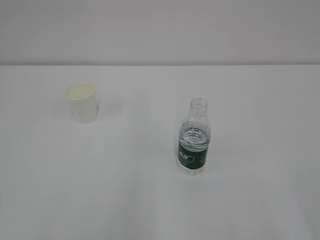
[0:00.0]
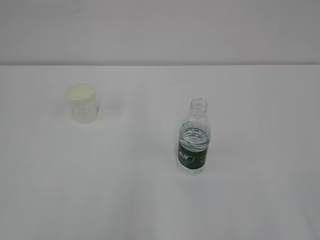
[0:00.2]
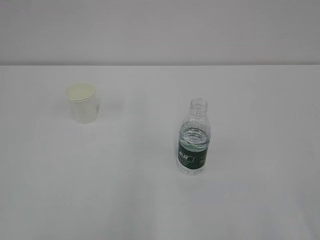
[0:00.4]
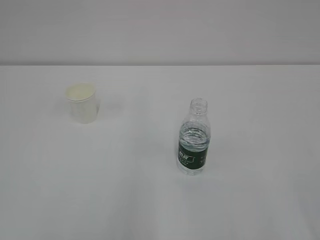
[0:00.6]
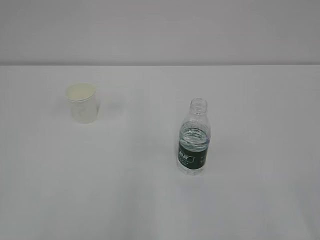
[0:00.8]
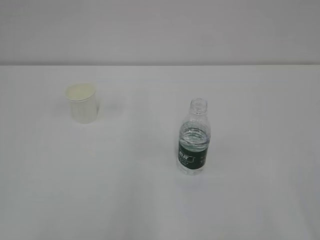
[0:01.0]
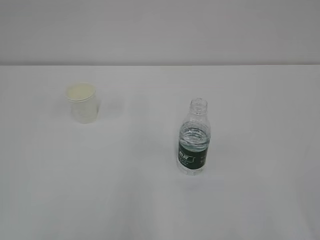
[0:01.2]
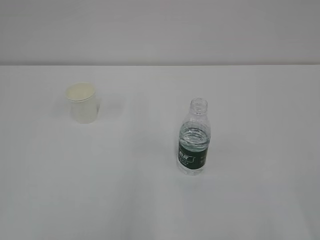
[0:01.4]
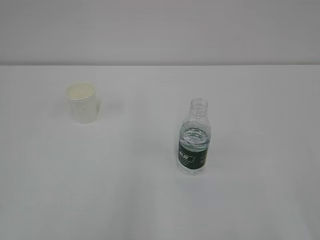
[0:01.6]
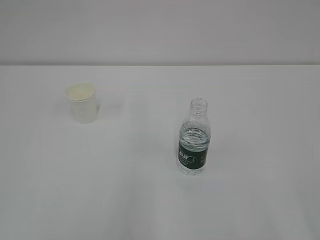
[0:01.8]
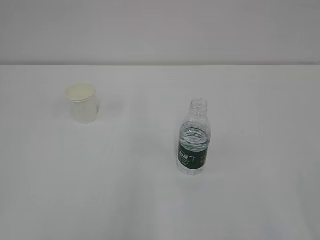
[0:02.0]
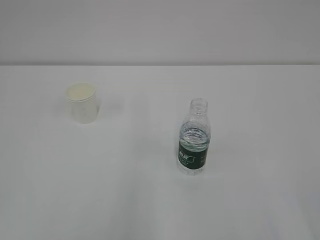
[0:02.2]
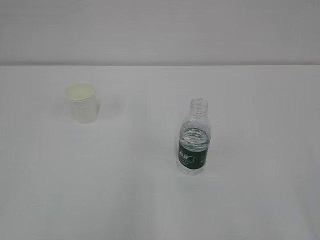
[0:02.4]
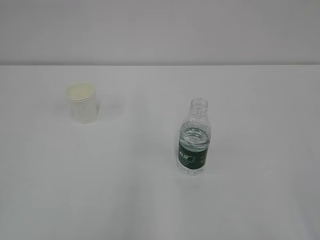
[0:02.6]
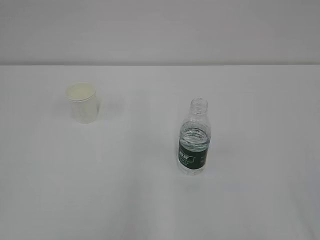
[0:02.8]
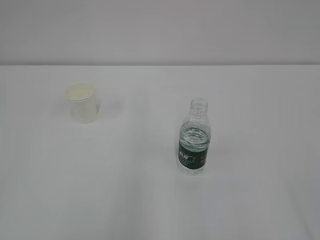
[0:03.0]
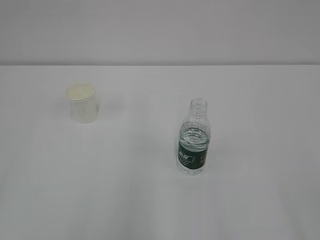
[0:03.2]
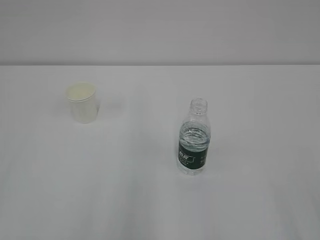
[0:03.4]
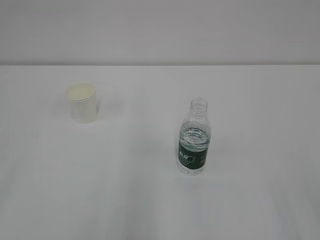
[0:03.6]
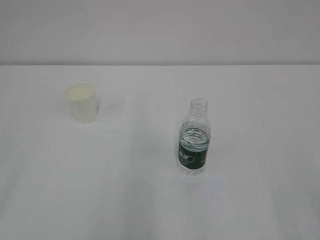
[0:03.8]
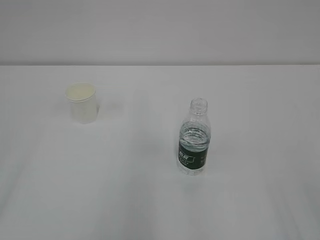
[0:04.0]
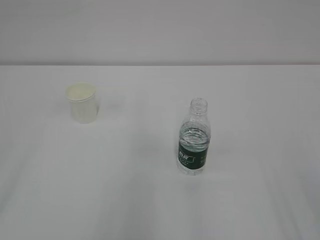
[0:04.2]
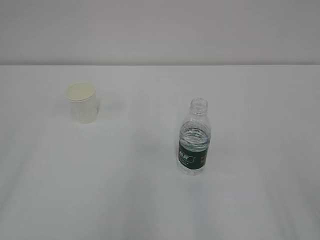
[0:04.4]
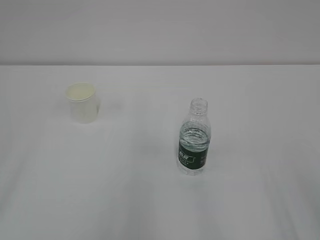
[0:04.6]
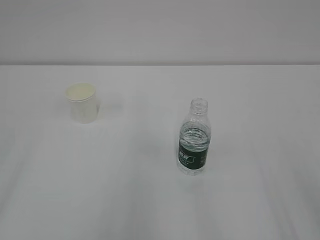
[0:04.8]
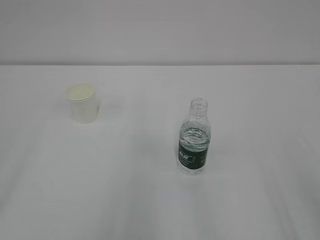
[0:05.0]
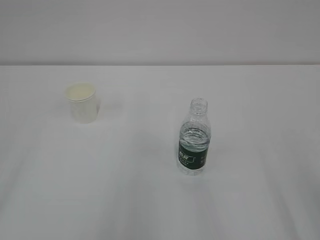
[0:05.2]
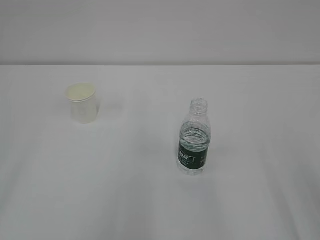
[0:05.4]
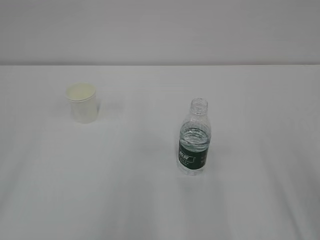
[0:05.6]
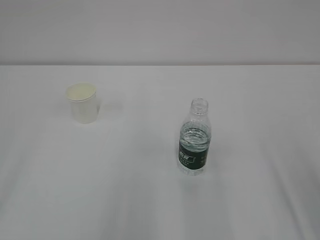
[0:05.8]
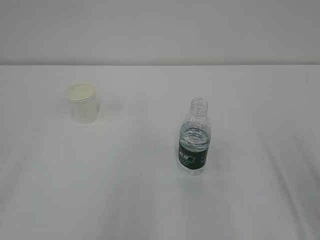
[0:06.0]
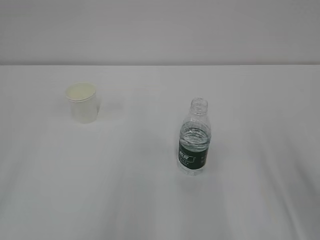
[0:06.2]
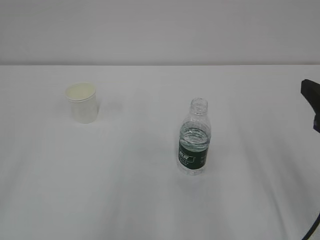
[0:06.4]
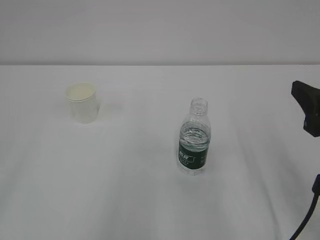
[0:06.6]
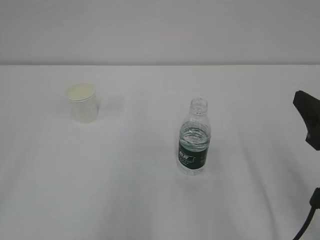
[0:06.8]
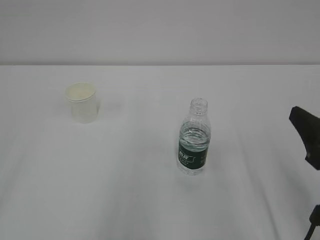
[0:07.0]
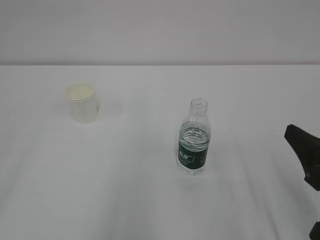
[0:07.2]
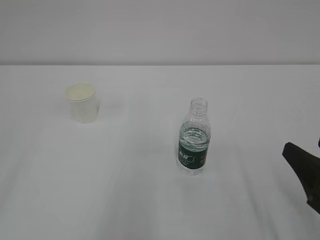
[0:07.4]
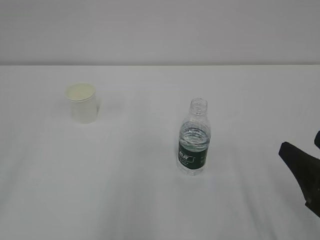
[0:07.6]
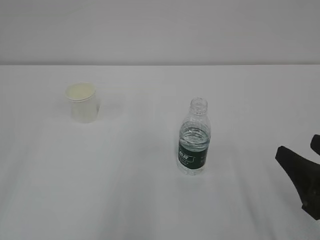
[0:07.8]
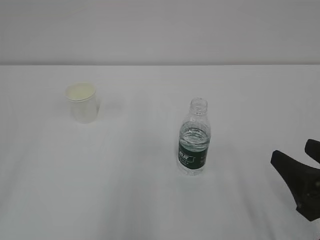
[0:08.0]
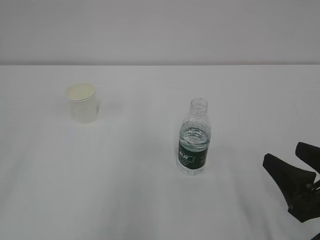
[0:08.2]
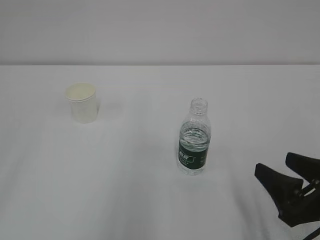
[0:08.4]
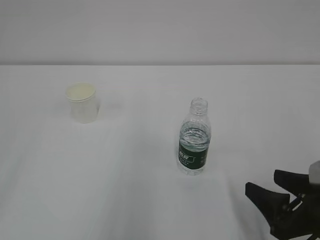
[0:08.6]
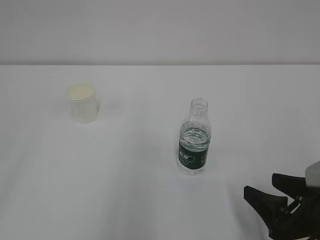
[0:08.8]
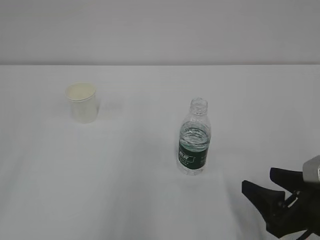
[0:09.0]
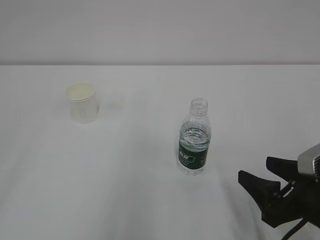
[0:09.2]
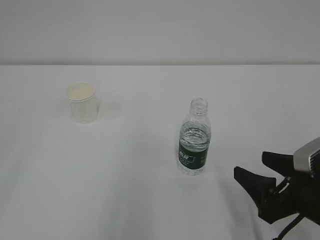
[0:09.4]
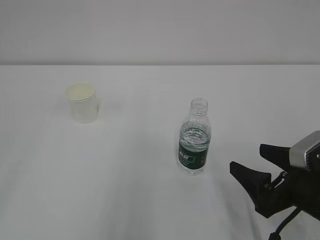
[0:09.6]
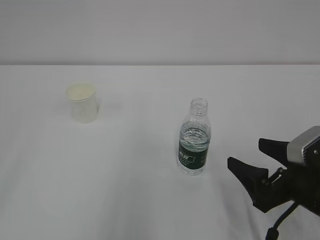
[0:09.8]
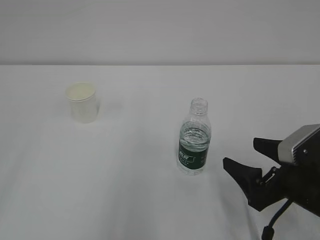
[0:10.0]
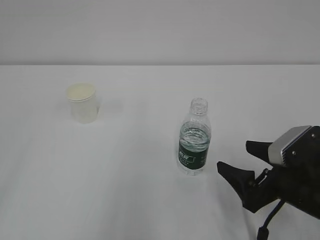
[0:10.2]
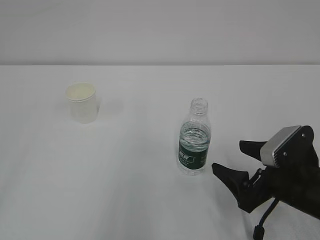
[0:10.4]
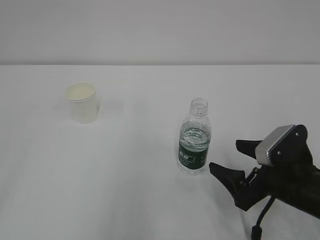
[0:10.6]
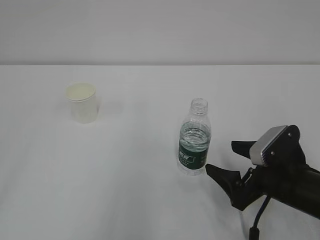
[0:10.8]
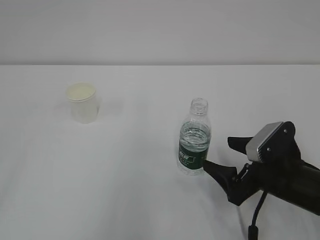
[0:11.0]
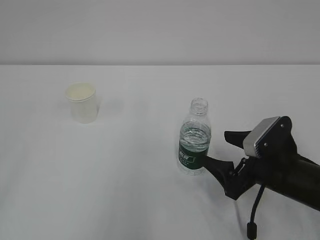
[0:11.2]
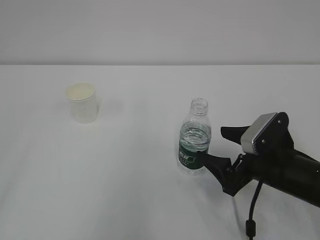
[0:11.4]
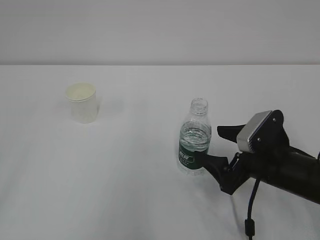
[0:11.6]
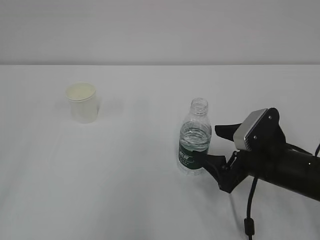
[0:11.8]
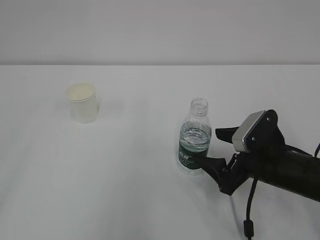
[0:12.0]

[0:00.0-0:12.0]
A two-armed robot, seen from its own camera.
0:06.0 to 0:07.6: The right gripper is displaced downward by about 10 cm.
0:07.6 to 0:09.0: The right gripper goes about 5 cm downward.
0:09.0 to 0:10.4: The right gripper travels forward by roughly 5 cm, and opens up.
0:10.4 to 0:12.0: The right gripper ends up about 5 cm from where it was.

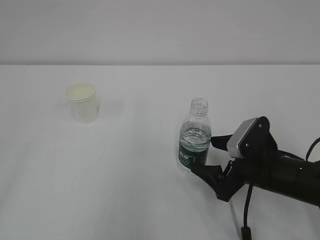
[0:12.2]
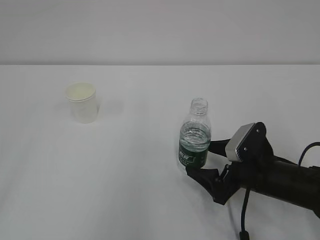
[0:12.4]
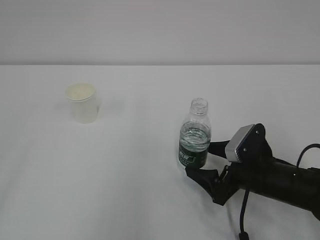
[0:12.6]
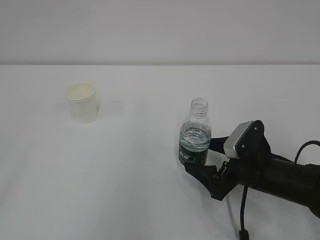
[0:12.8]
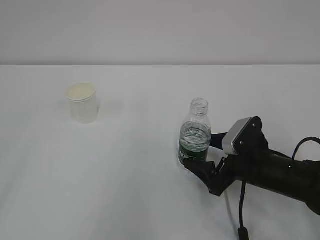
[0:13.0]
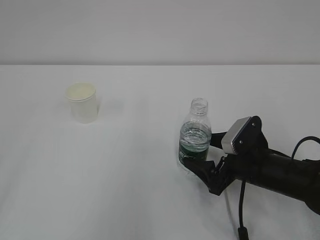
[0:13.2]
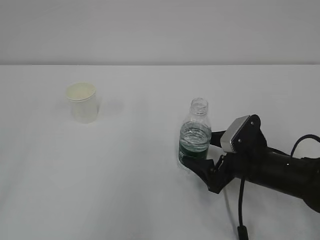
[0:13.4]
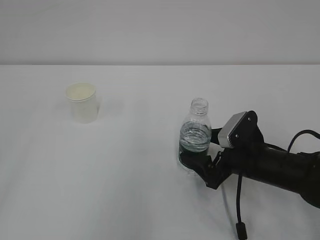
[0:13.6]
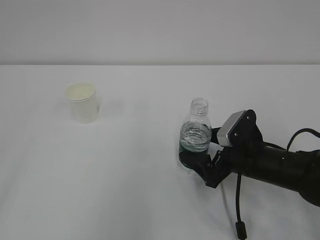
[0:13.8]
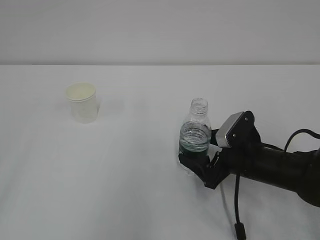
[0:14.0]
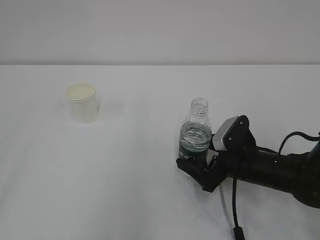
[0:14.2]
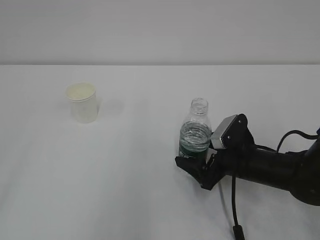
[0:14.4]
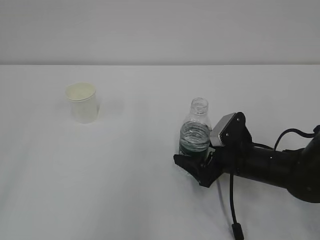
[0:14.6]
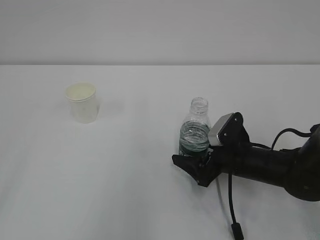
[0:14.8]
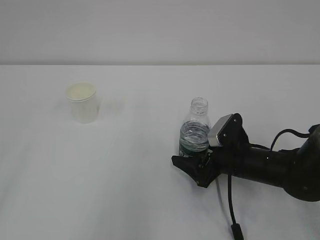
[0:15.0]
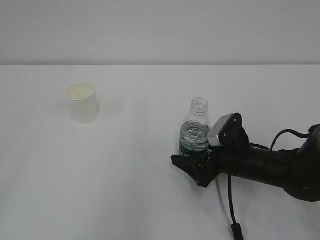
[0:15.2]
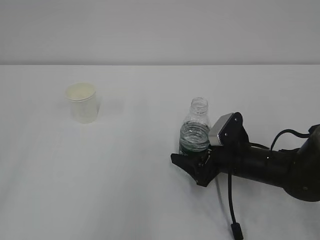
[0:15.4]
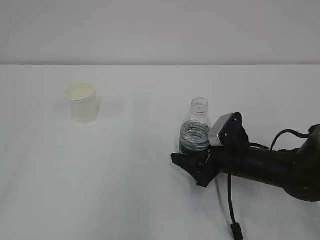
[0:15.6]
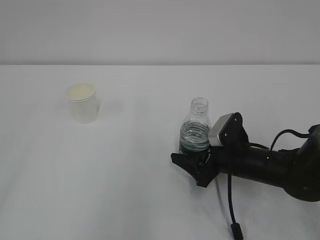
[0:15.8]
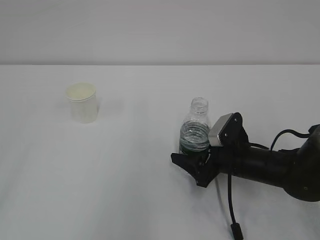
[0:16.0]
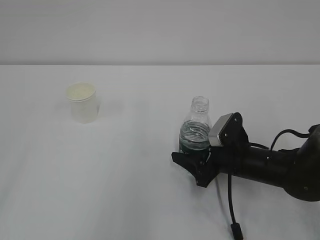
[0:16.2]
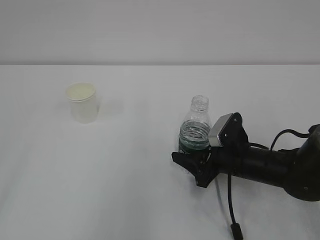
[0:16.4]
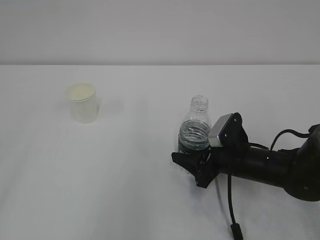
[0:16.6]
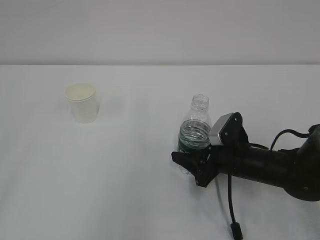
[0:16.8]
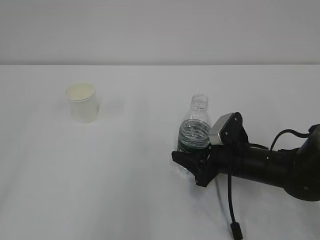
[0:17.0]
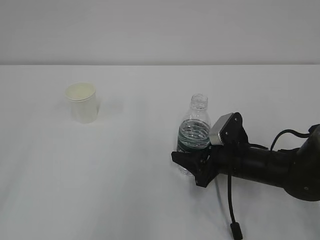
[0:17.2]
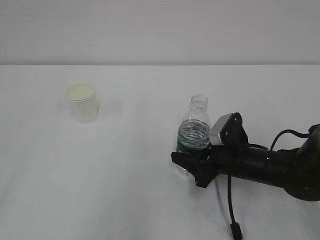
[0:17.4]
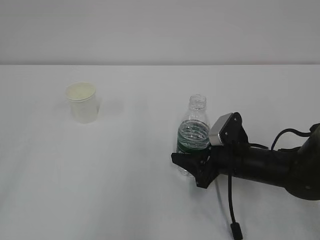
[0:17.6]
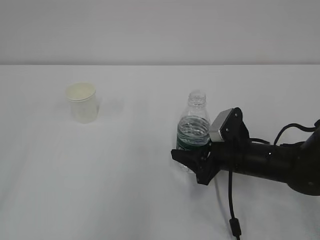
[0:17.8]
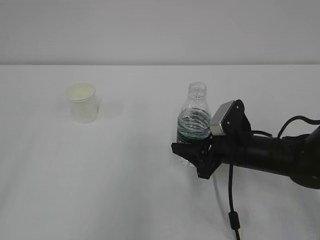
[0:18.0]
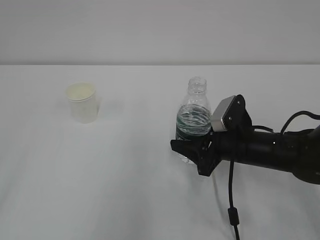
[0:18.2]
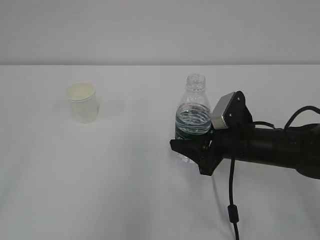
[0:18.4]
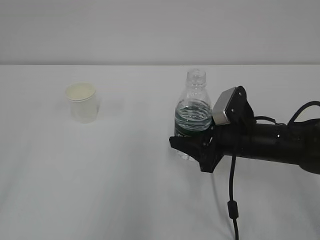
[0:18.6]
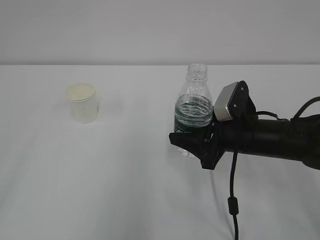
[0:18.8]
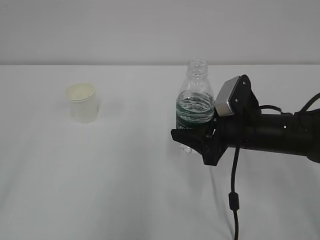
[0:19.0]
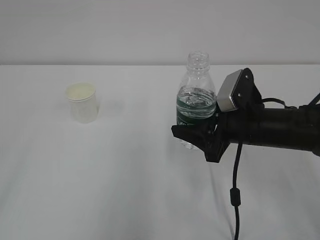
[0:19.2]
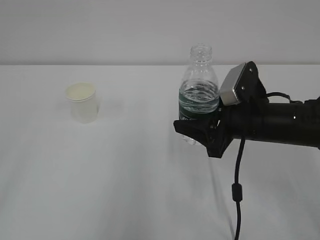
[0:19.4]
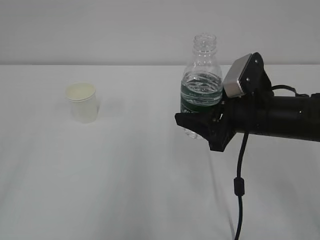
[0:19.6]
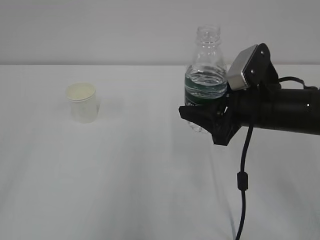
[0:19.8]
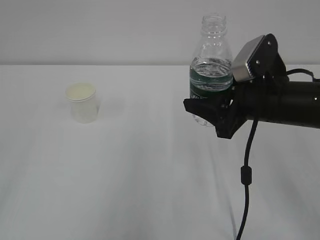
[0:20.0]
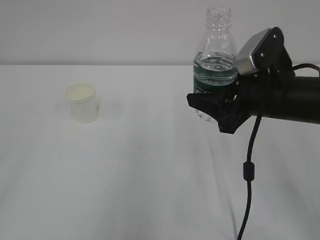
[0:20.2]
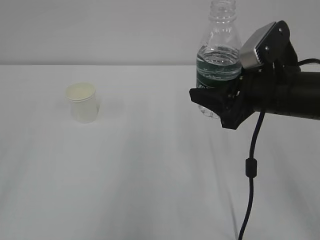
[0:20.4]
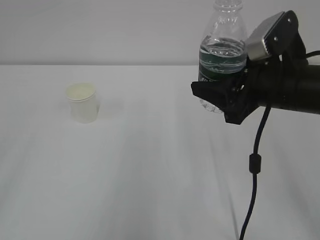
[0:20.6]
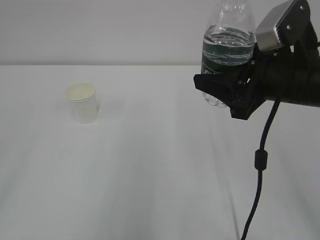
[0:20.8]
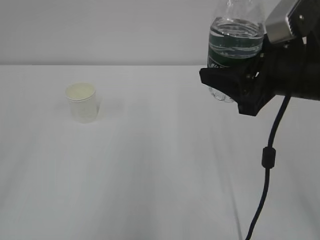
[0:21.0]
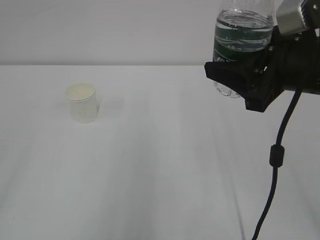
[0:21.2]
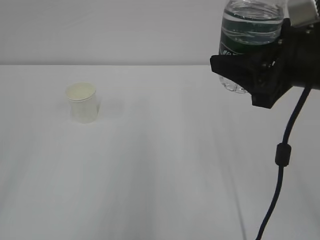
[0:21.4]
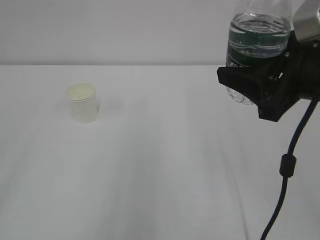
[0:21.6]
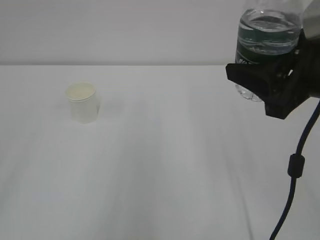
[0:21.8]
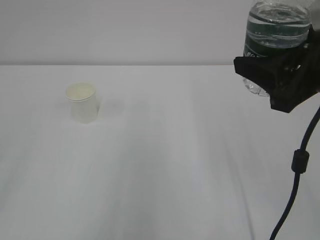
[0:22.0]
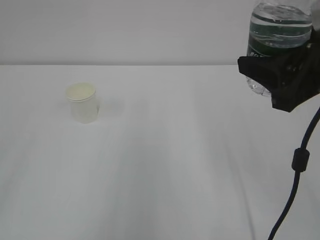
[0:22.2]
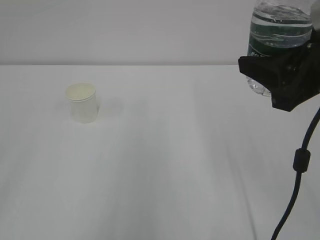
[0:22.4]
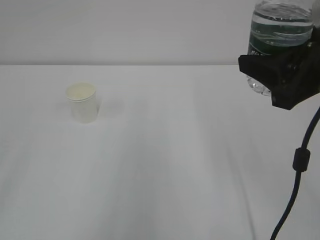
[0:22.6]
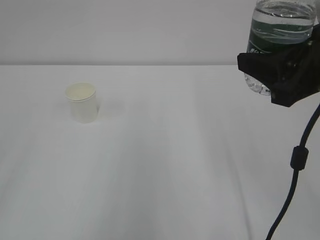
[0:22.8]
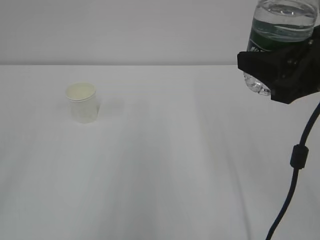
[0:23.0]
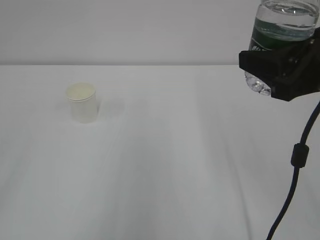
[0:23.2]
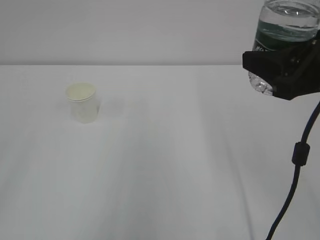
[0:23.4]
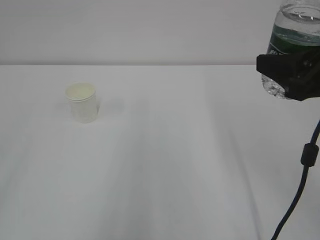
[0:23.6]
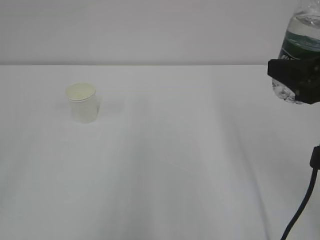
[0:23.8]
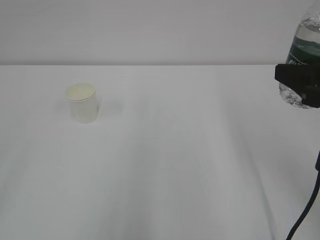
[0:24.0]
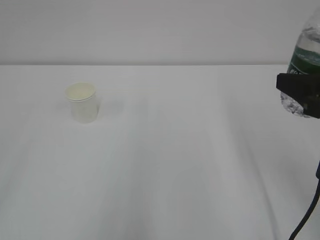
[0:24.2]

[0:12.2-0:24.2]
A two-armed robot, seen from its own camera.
0:12.2 to 0:13.8: The grippers make only small movements.
0:13.8 to 0:15.2: There are only small adjustments of the grippers.
0:15.2 to 0:16.6: The right gripper closes up.
0:16.6 to 0:18.2: There are only small adjustments of the grippers.
0:18.2 to 0:19.8: The right gripper moves upward, approximately 10 cm.
0:19.8 to 0:21.2: The right gripper is displaced upward by roughly 10 cm.
0:21.2 to 0:22.6: The grippers stay close to where they were, moving slightly.
0:22.6 to 0:24.2: The right gripper travels to the right by roughly 5 cm.
